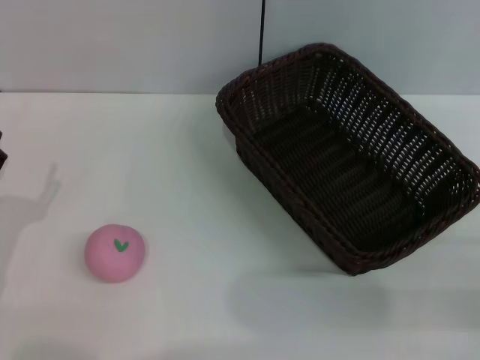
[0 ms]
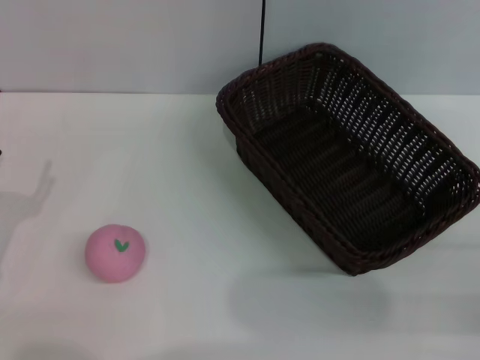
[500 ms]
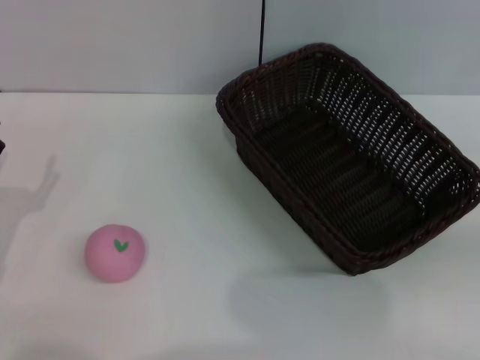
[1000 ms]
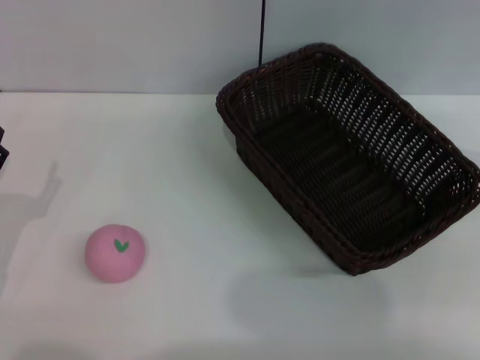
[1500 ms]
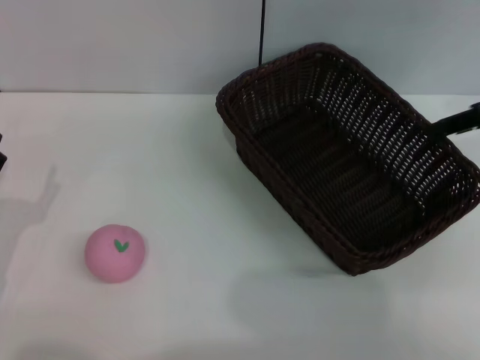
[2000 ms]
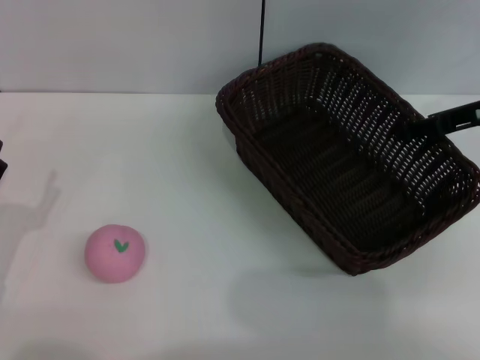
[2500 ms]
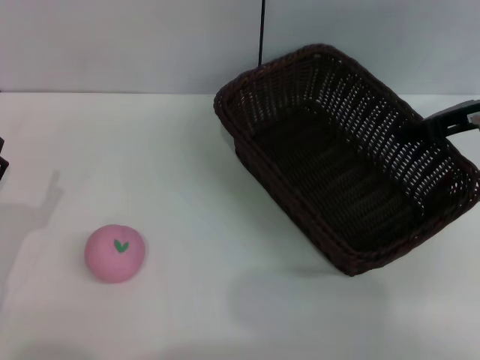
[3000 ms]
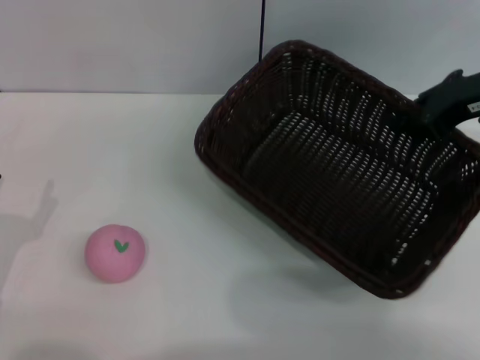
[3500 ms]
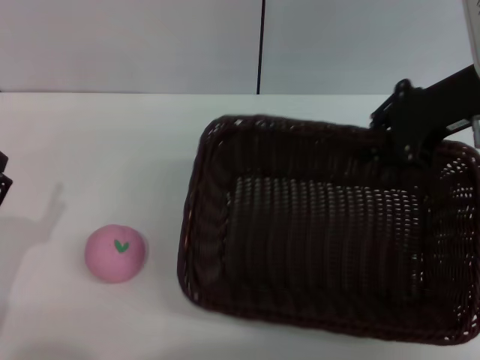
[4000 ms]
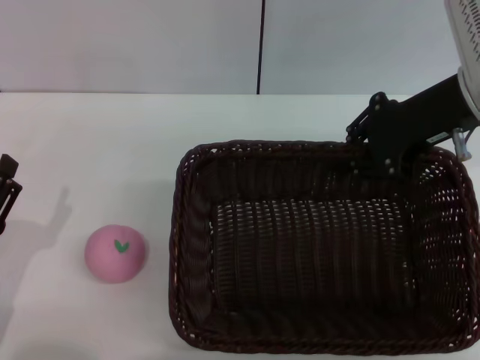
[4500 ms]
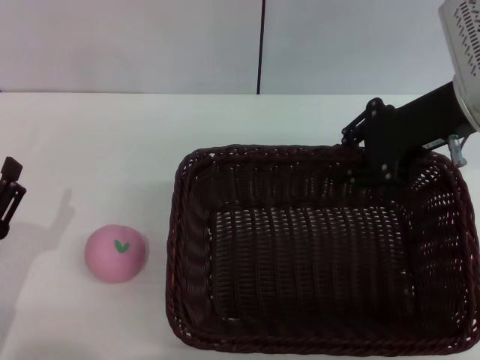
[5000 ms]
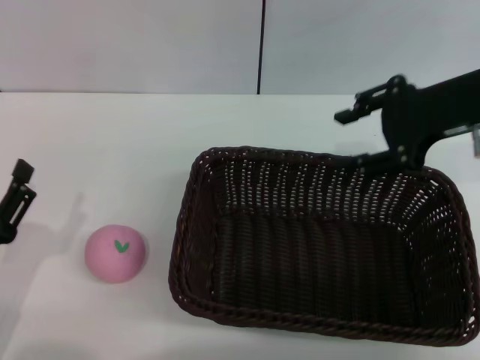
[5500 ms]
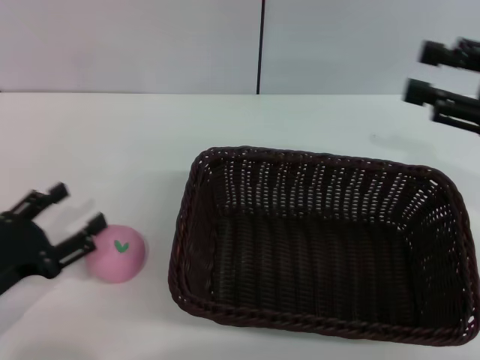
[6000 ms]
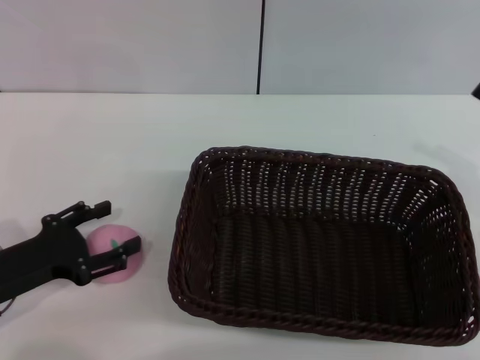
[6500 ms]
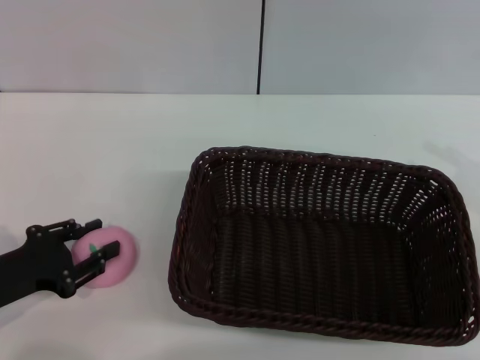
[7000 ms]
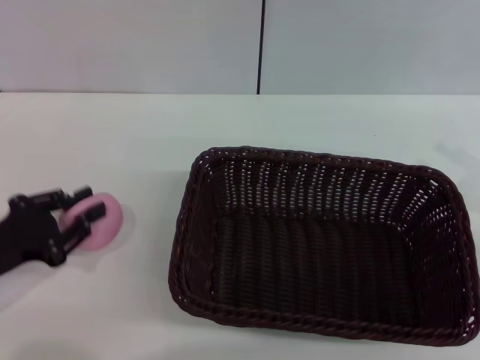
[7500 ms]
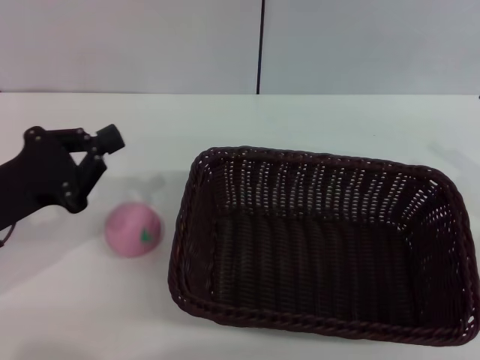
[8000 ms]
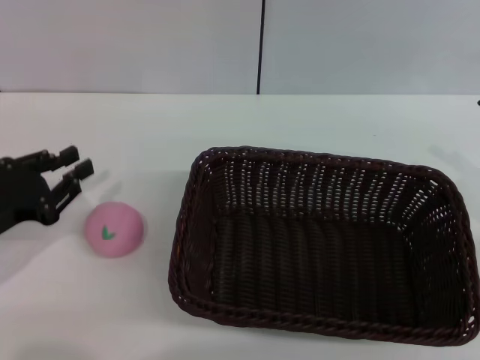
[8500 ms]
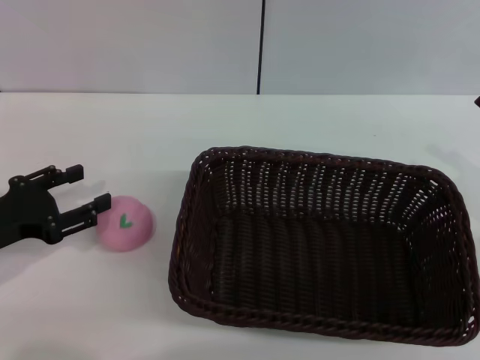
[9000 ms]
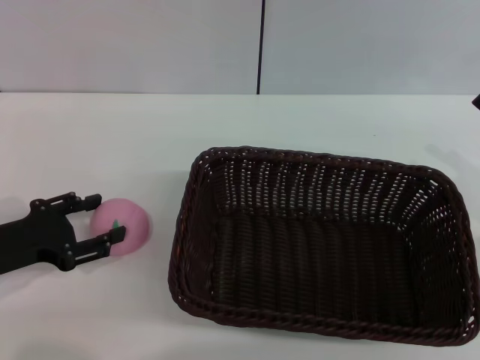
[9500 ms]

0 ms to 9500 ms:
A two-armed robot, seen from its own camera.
Step, 0 ms to 3500 ms: Pick up the dark basket with the right gripper.
Step, 4000 ms to 5500 ms: Place the dark basket in the center of view with the right gripper.
0 ms to 2000 ms: The right gripper is displaced forward and upward by about 20 cm.
2000 ms to 4000 ms: The right gripper shifts about 10 cm to the left, and closes up.
4000 ms to 5500 ms: The right gripper opens up.
5500 ms to 7500 ms: The right gripper shifts approximately 20 cm to the right, backward and downward, while the left gripper moves forward, roughly 5 cm, and closes.
7500 ms to 9500 ms: The left gripper opens its fingers.

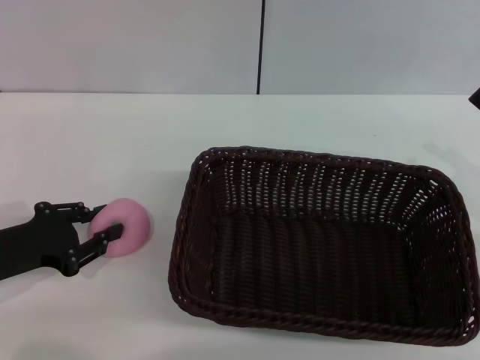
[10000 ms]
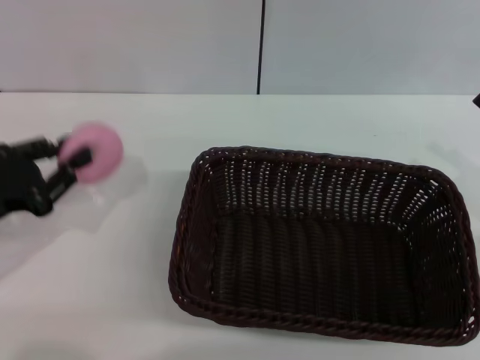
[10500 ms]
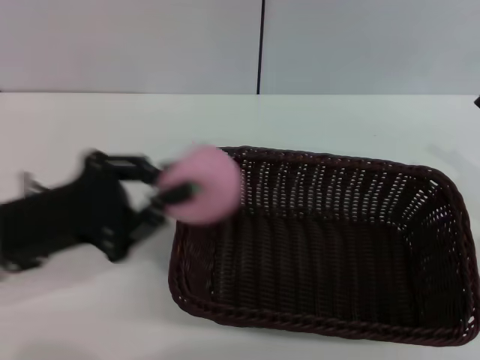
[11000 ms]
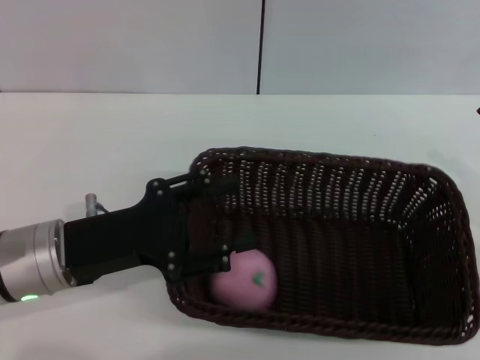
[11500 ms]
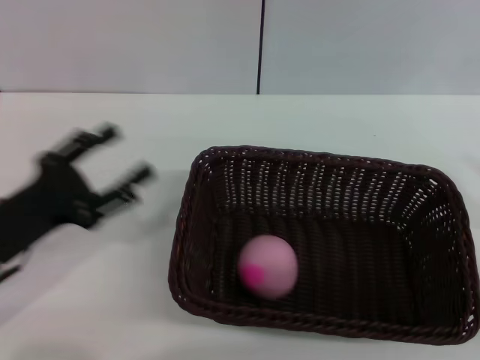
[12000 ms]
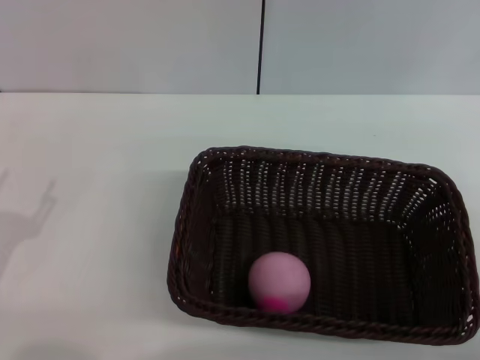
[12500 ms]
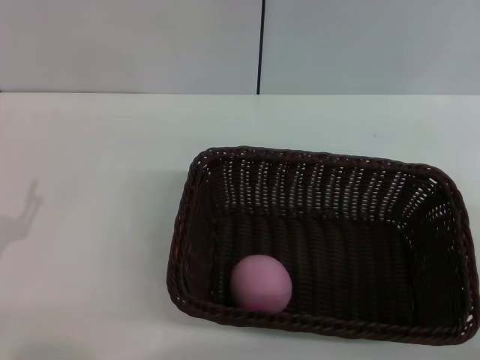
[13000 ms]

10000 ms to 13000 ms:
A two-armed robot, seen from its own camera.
Step, 11000 ms to 12000 ms: Place the peach into the basket with the left gripper.
10000 ms to 11500 ms: The left gripper is displaced to the right by some 10 cm.
11500 ms to 13000 ms: The left gripper goes approximately 15 cm to the left, backward and downward, and opens, while the right gripper ends up about 5 cm from where it was.

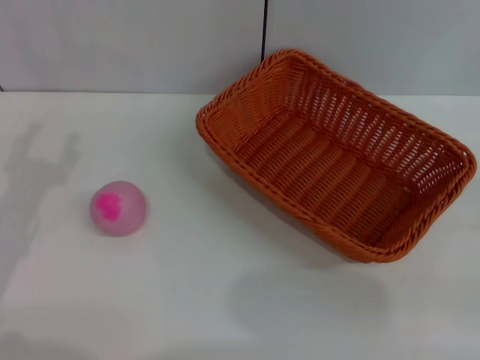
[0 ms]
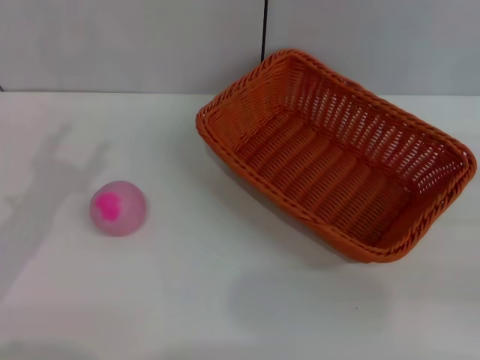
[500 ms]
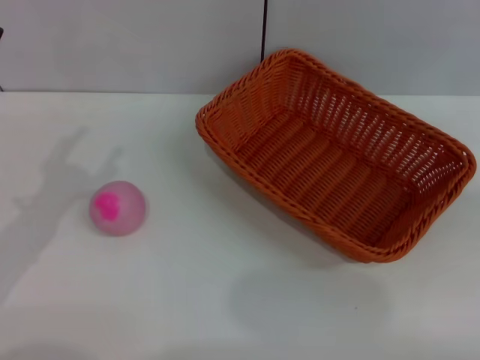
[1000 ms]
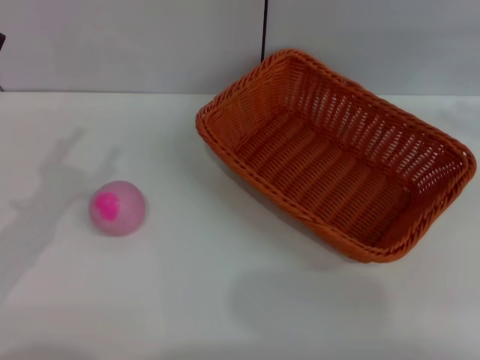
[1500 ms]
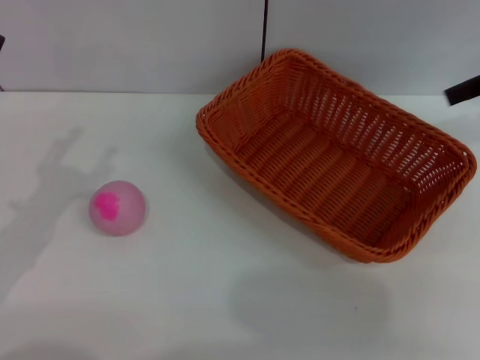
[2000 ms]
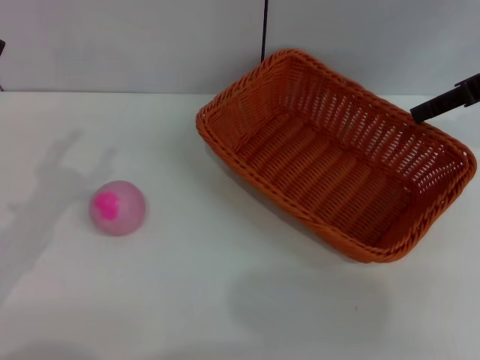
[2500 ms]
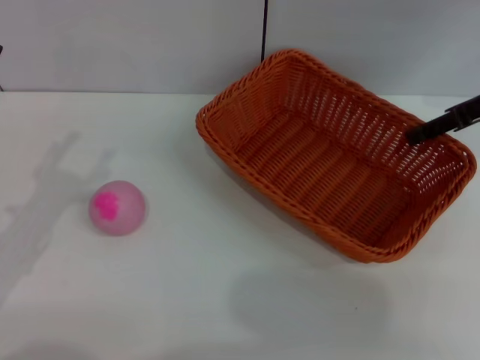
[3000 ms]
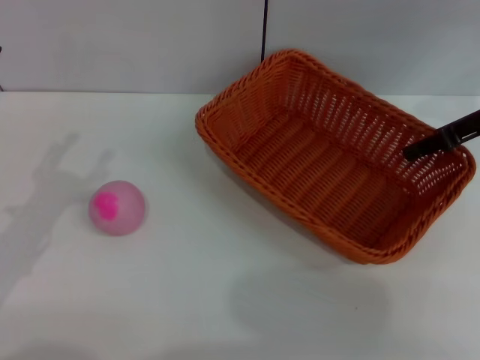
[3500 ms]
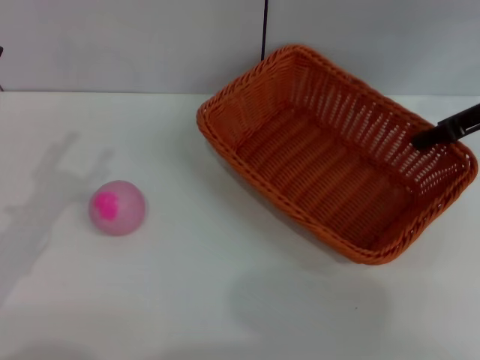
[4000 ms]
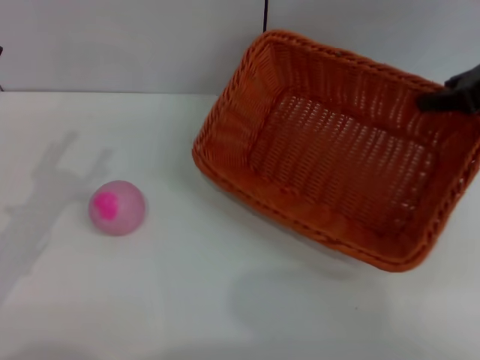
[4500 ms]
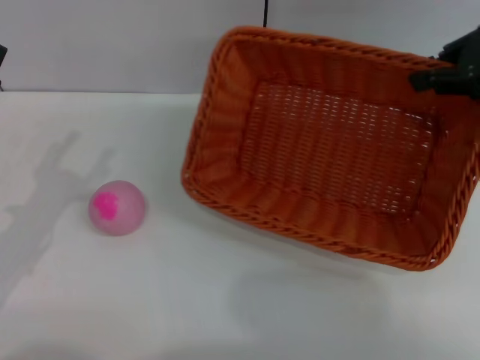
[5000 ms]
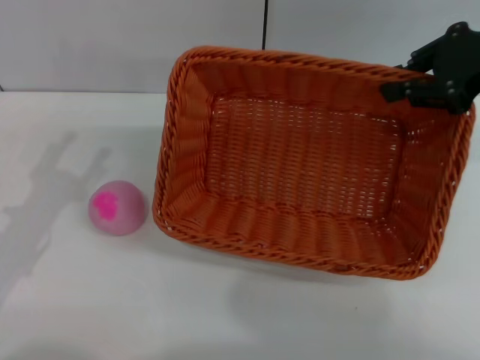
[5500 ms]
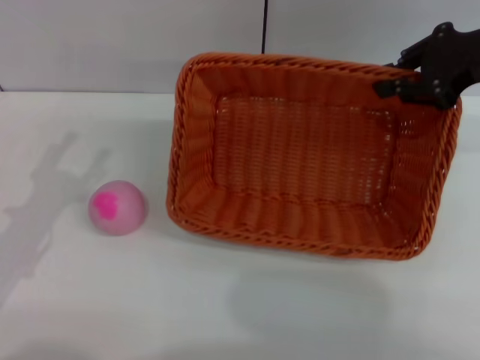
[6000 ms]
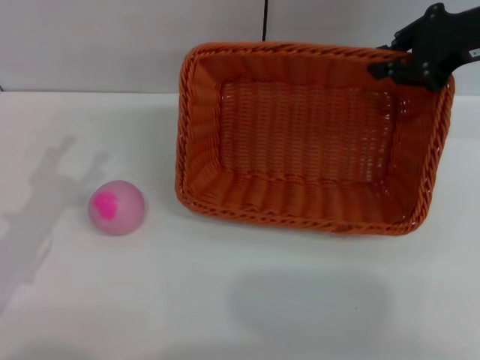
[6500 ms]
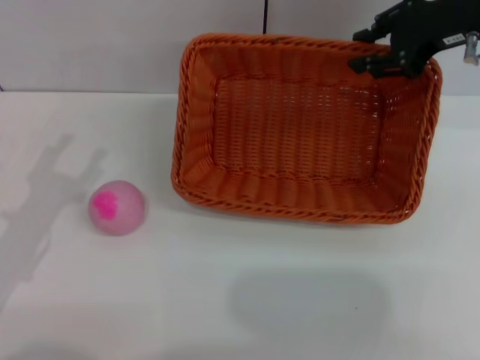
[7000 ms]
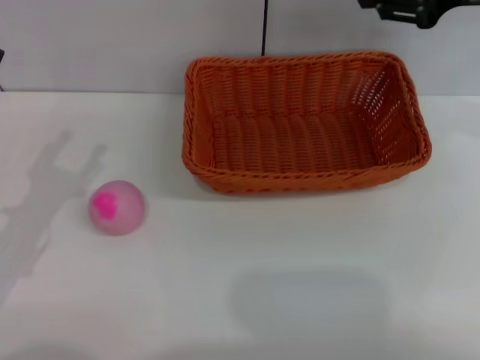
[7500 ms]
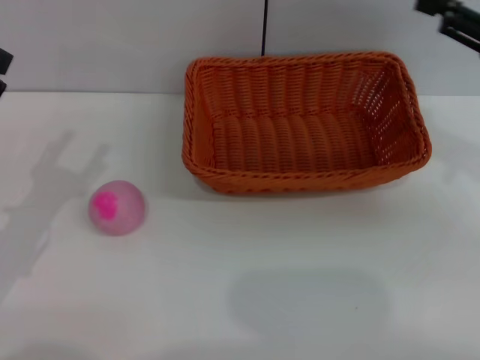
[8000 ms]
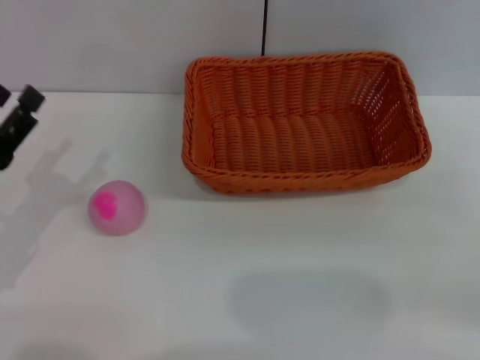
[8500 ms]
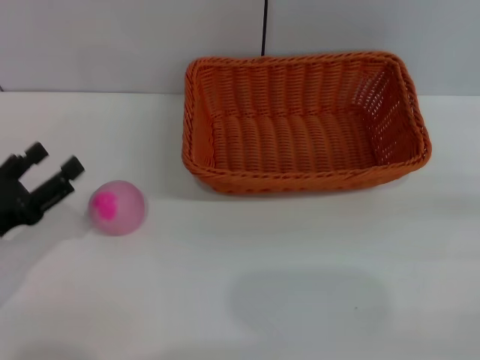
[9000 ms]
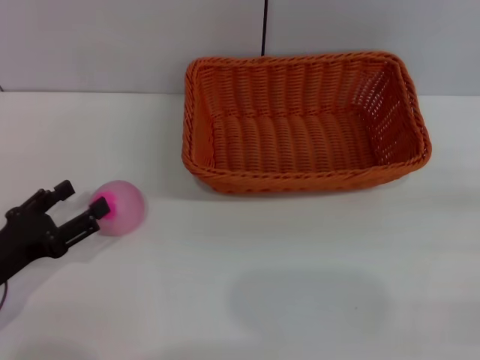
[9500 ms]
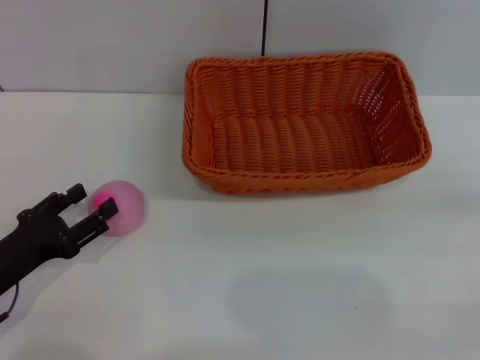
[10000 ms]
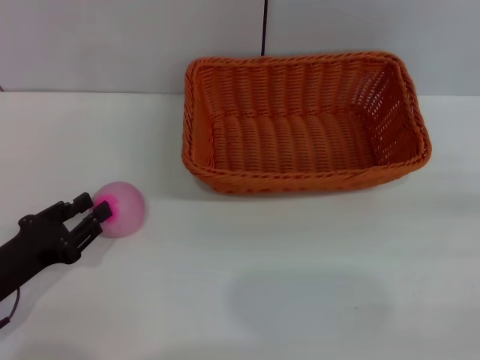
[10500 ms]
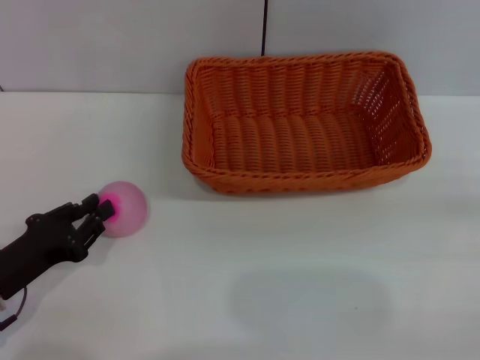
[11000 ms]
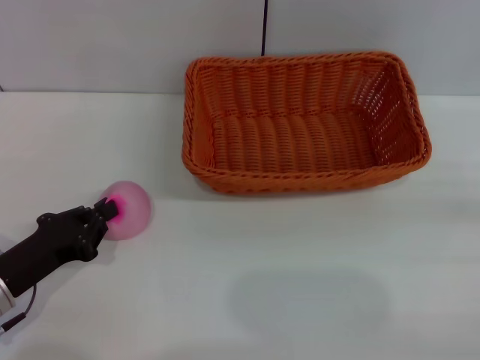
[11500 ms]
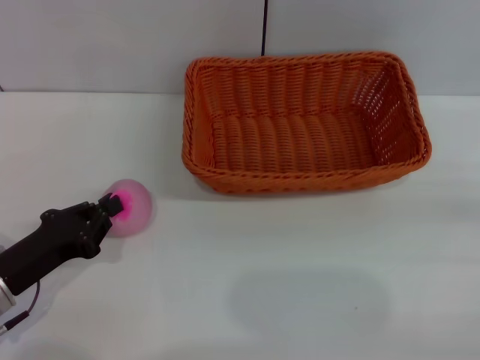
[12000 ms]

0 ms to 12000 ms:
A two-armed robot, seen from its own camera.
Step, 0 ms to 4000 ms: Pick up the light basket with the right gripper.
Step, 4500 ms to 7500 ms: Place the light basket in the center of view with the right gripper.
2000 ms to 4000 ms: The right gripper moves downward, roughly 5 cm, and closes up.
6000 ms to 8000 ms: The right gripper shifts roughly 10 cm backward, and opens up.
8000 ms to 10000 ms: The right gripper travels downward, backward and to the right by approximately 20 cm, while the left gripper goes approximately 5 cm downward.
10000 ms to 12000 ms: The left gripper closes.

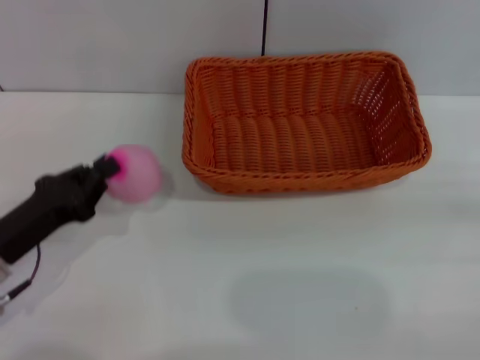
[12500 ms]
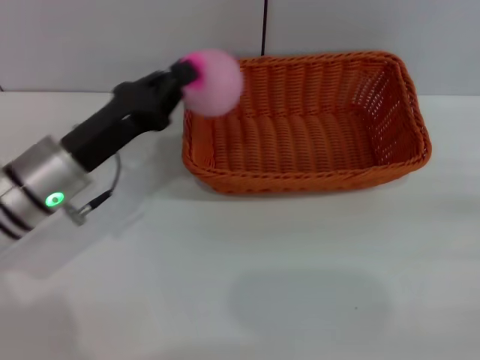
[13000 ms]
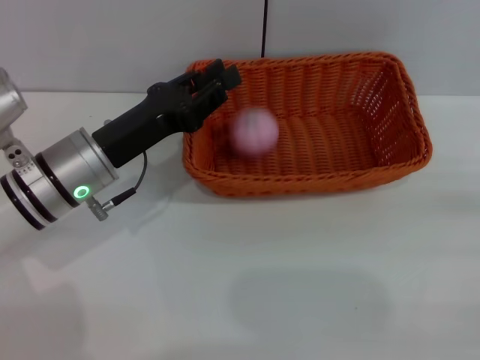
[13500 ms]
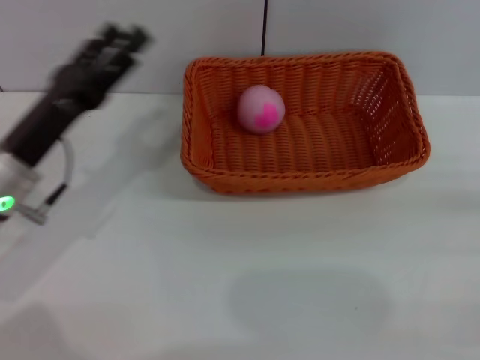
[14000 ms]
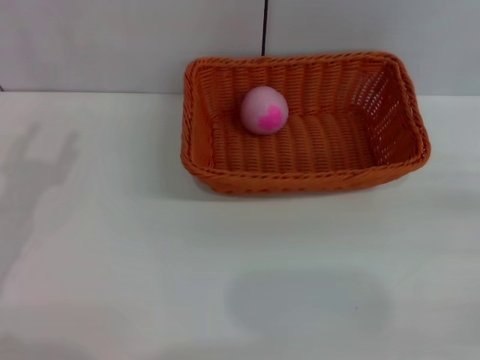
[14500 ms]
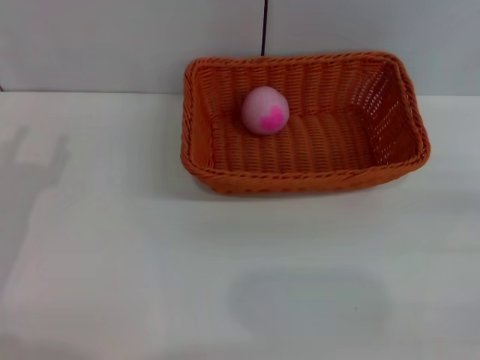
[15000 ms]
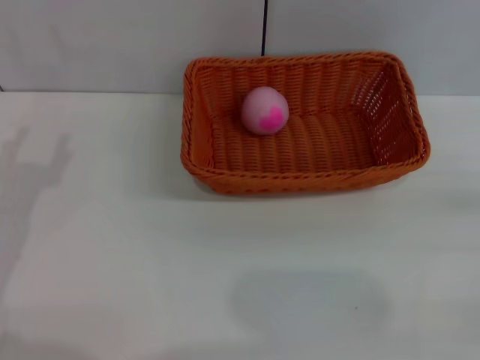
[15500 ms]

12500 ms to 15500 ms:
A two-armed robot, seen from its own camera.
Step, 13000 ms to 14000 ms: Place the peach into the basket with the left gripper.
12500 ms to 14000 ms: The left gripper travels forward by approximately 5 cm, and opens.
14000 ms to 15500 ms: The left gripper moves backward and to the left, some 10 cm, and opens up.
